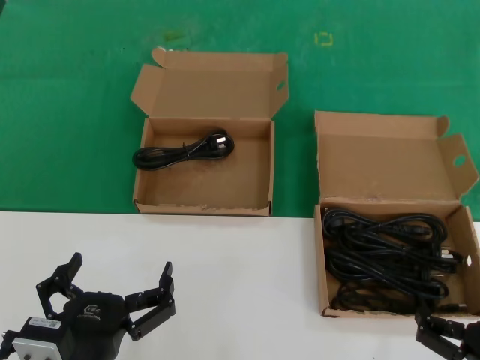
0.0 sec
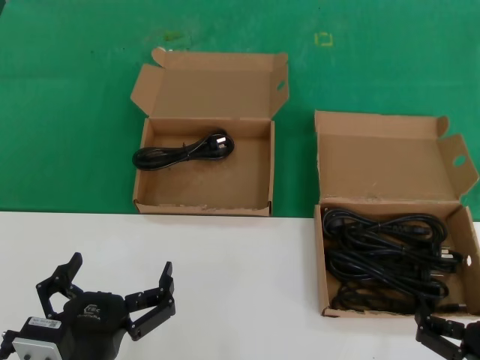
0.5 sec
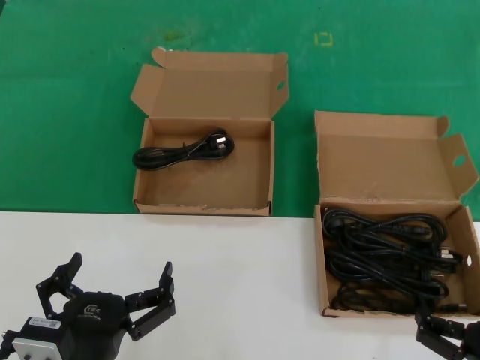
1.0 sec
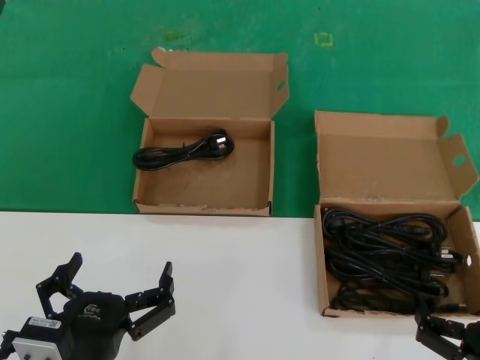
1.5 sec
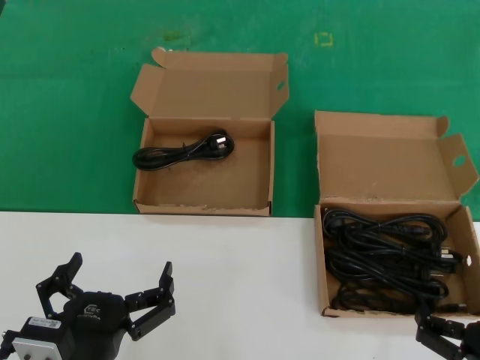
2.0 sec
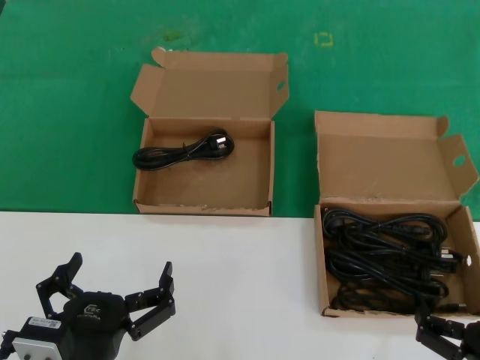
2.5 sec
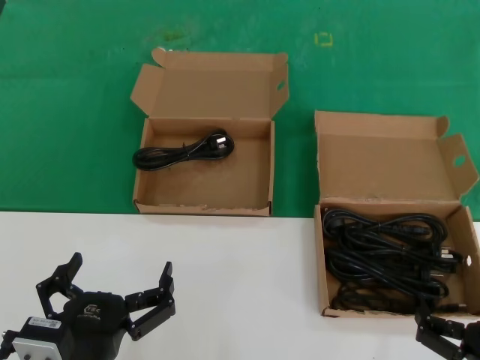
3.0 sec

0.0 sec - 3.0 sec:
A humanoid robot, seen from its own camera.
Task of the whole recording: take the parts from the box containing them and put them into an empty box.
0.0 sec - 3.0 sec: The two hands keep their place.

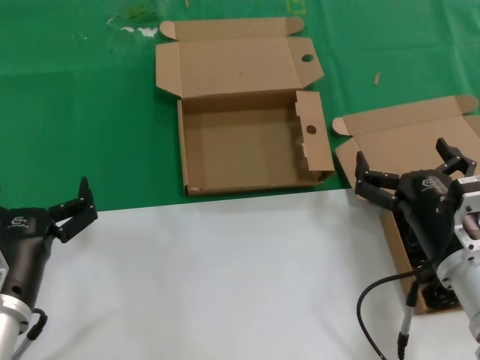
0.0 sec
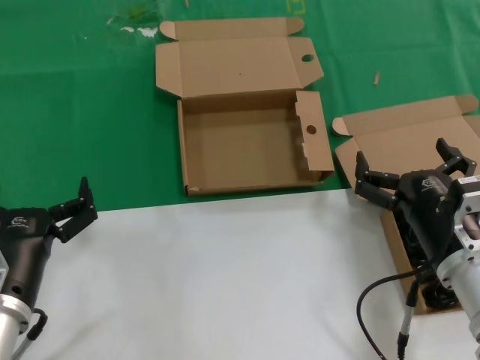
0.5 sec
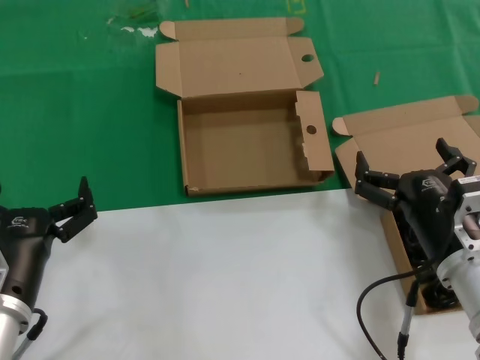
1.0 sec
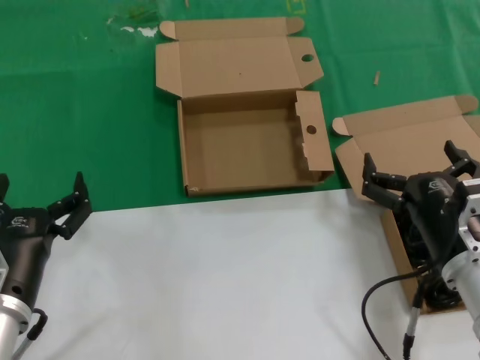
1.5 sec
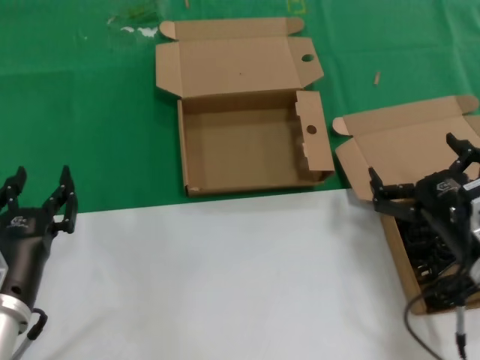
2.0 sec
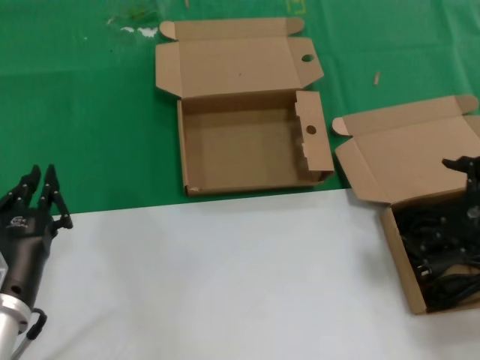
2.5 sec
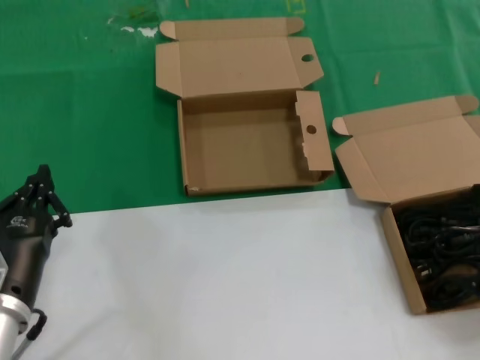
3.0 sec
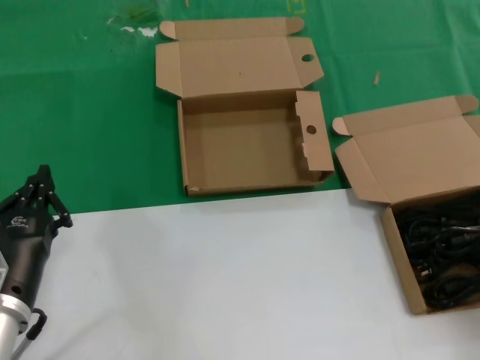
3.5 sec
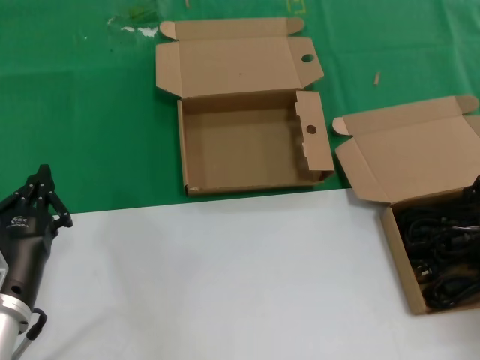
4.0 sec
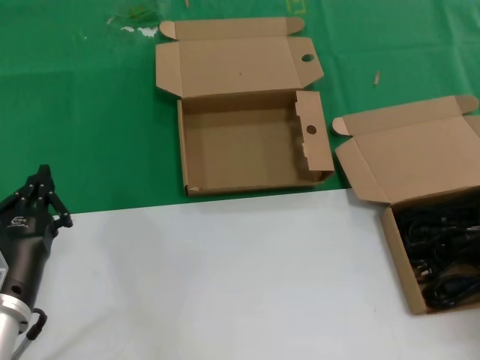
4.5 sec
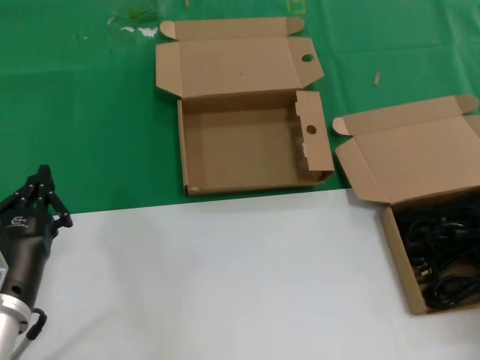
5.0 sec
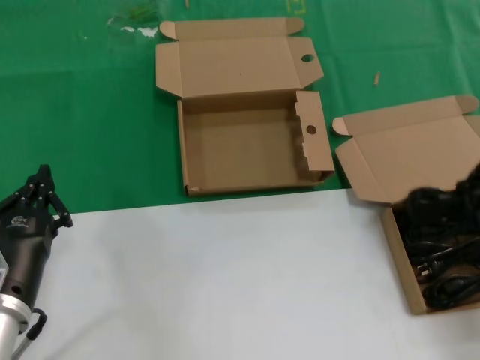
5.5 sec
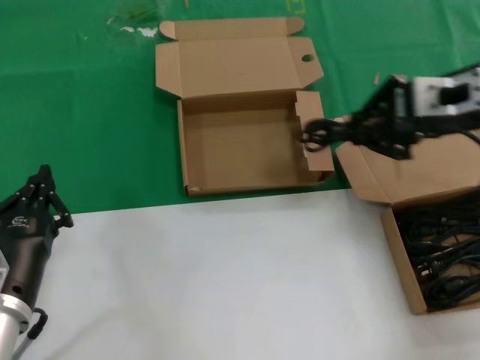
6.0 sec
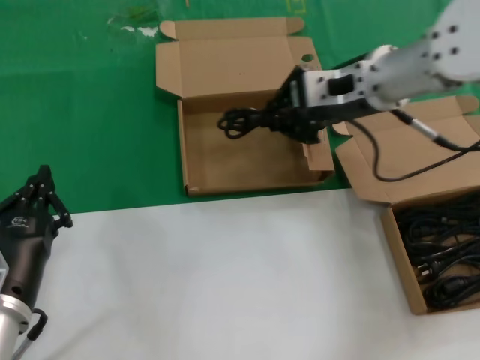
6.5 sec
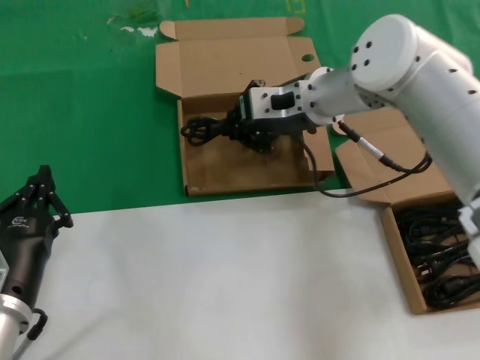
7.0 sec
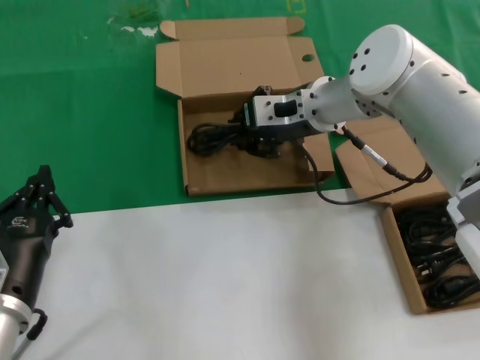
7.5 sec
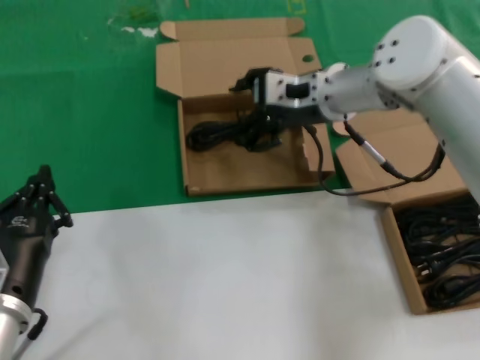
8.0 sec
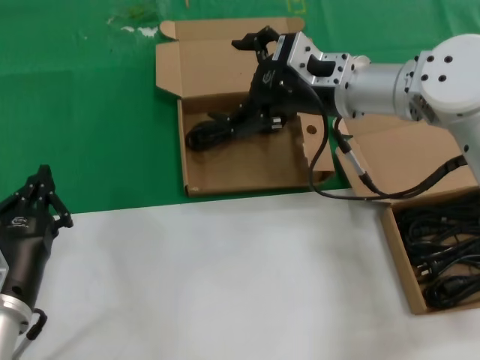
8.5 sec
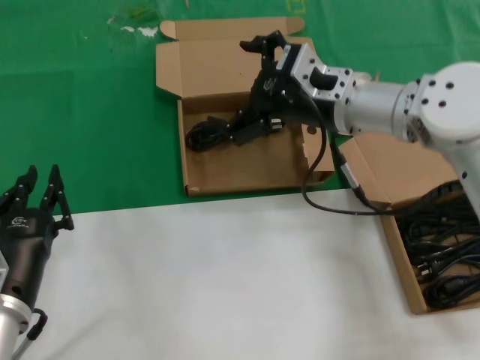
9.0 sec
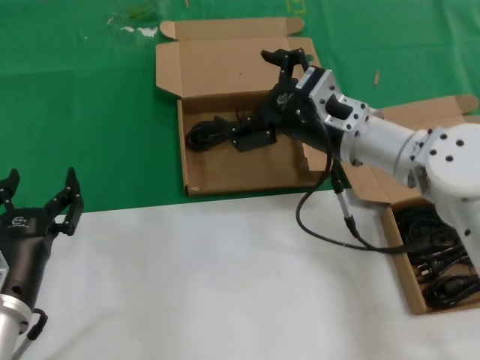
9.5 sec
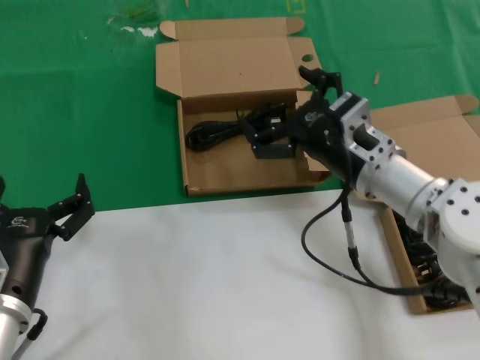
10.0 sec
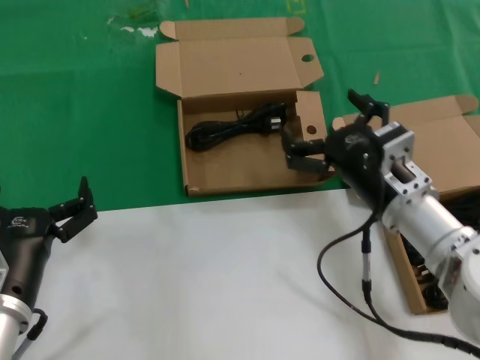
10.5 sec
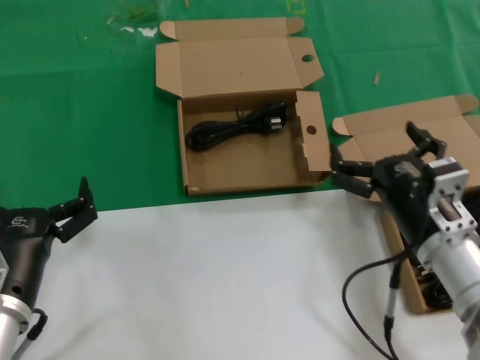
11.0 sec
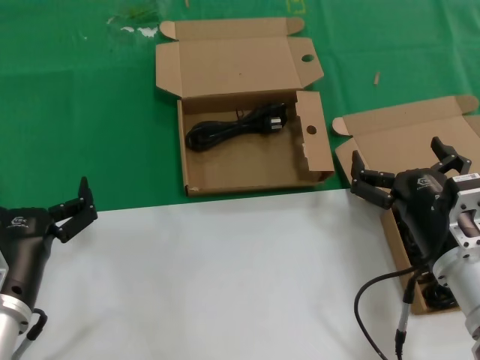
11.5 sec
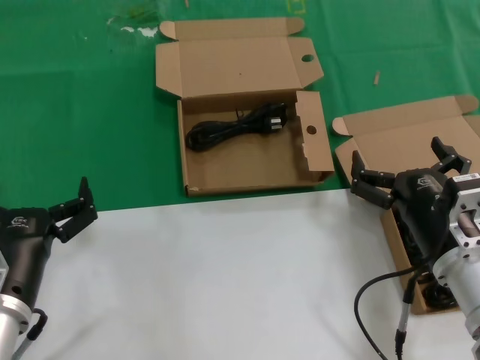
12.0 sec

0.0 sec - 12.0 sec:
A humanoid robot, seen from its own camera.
Task of the whole recording: take the parts from the box containing them and put them into an empty box.
Step, 0.0 sec - 5.0 sec: Grasp the data cable.
Step, 5.5 sec - 7.5 sec: Place the data cable in the another box.
0.0 sec - 2.0 sec: The hands make only small movements.
2.0 sec - 4.0 sec: The right hand goes approximately 20 cm upward, to the right and forward.
4.0 sec - 6.0 sec: The right hand goes roughly 15 cm to the left, upward and forward.
6.0 sec - 8.0 sec: The right hand shifts approximately 20 cm to the left, forward and downward.
8.0 sec - 10.0 sec: The right hand shifts roughly 15 cm backward and downward.
10.0 sec - 12.0 sec: The right hand moves backward and downward, some 15 cm.

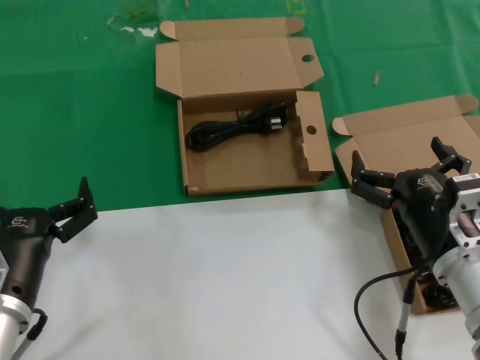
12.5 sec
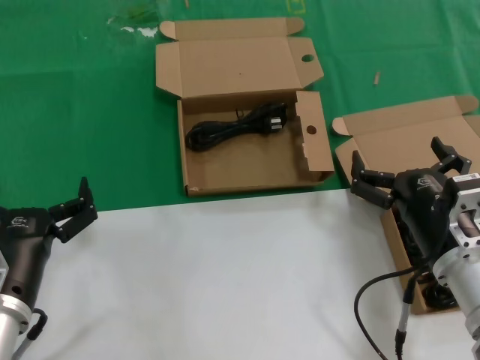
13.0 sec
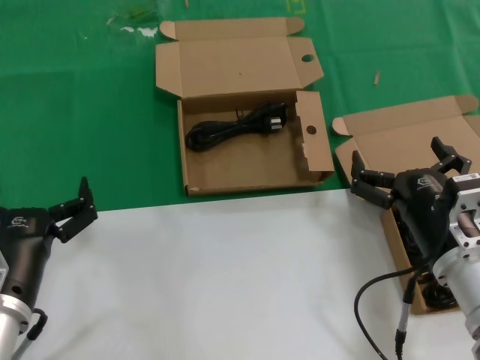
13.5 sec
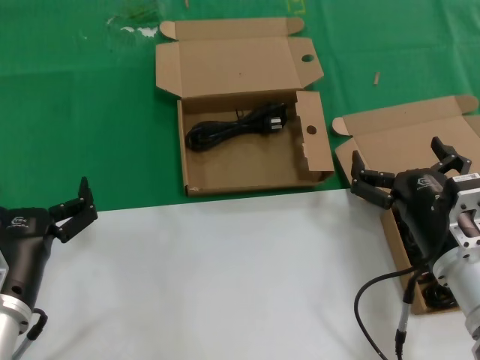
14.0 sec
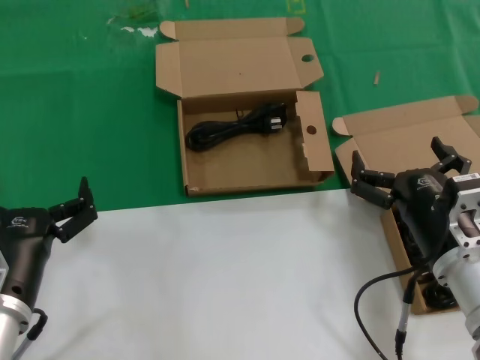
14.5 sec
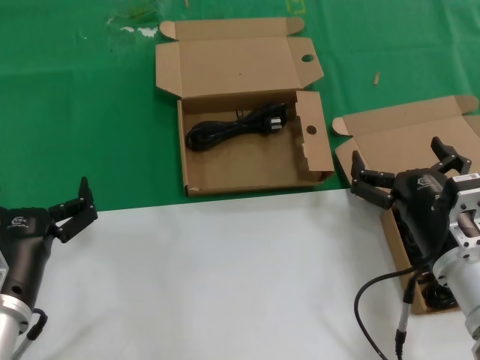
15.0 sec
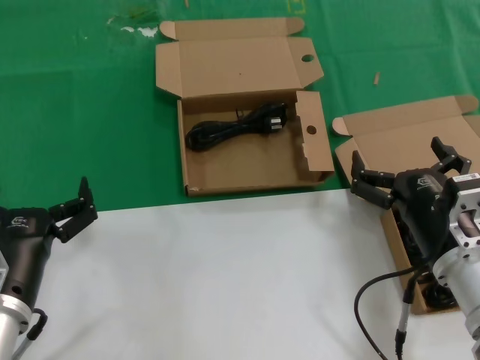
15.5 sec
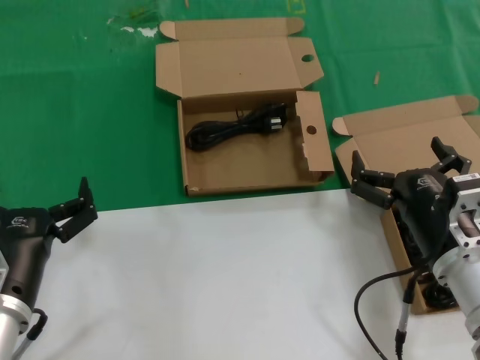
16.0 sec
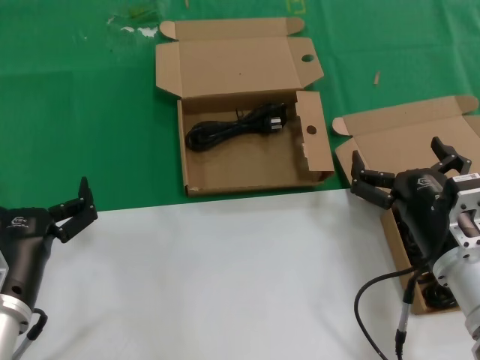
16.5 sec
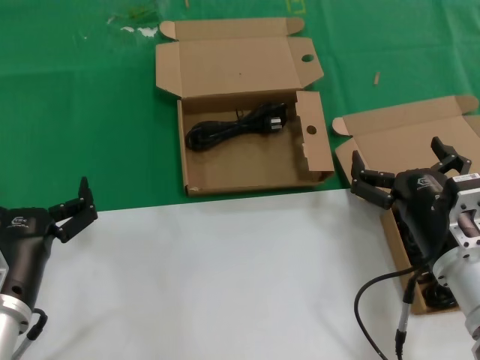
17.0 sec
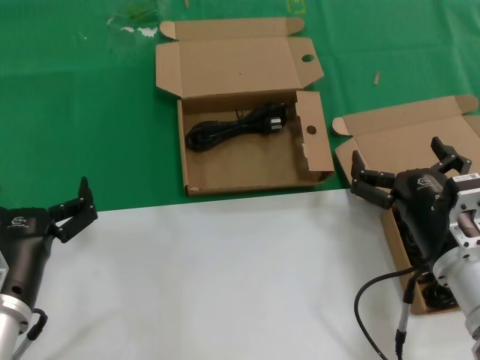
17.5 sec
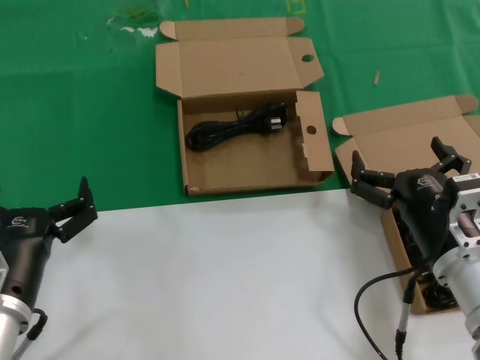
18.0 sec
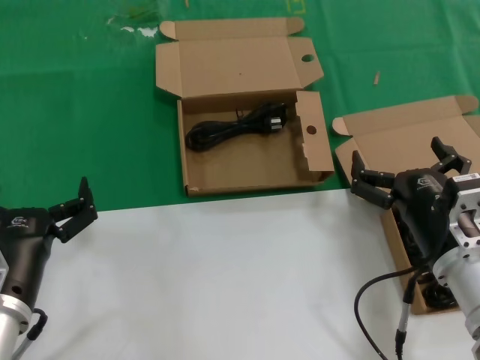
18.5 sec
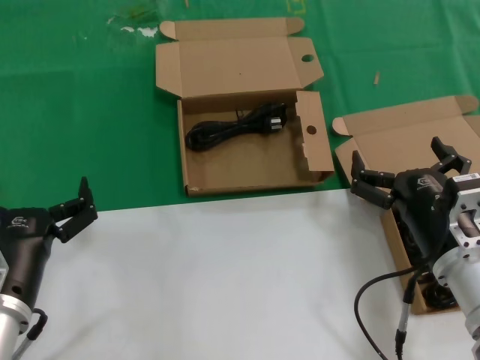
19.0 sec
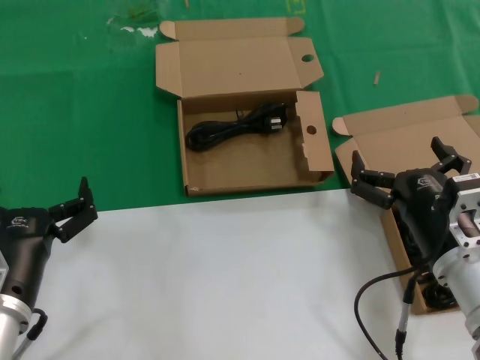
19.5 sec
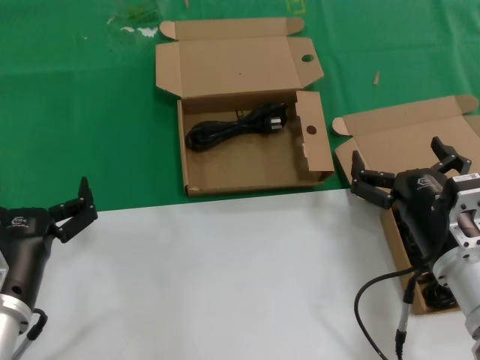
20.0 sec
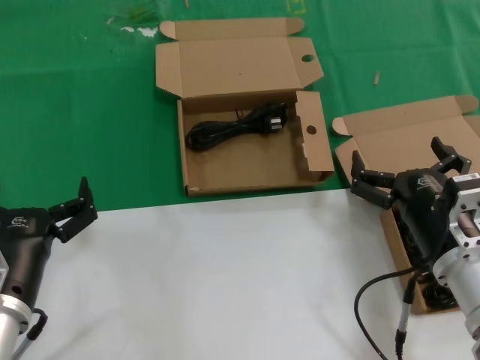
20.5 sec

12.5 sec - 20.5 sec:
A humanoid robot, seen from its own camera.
Task of the whole recording: take the parts from the box containing them and put them into an empty box.
12.5 sec - 20.5 sec: Neither hand changes place.

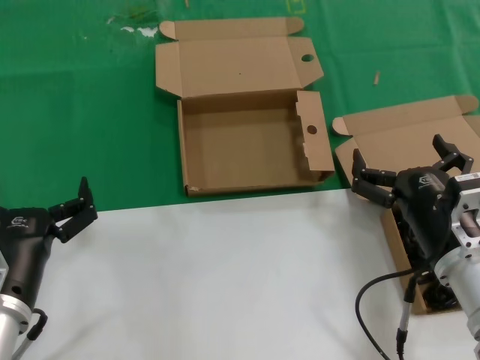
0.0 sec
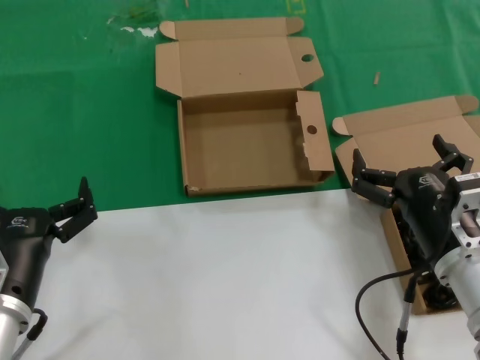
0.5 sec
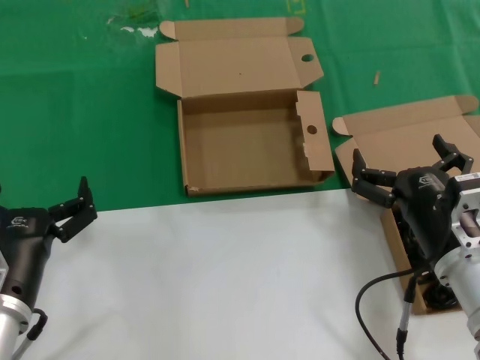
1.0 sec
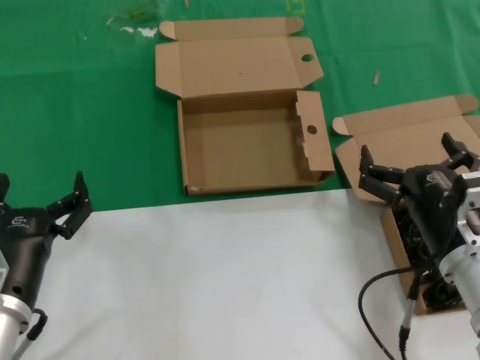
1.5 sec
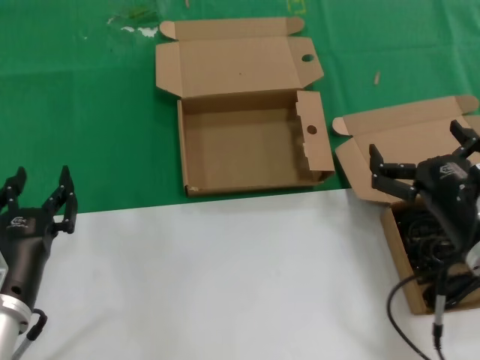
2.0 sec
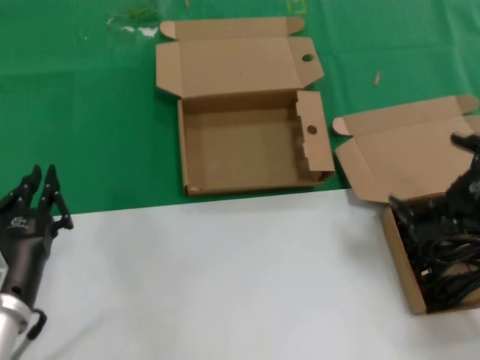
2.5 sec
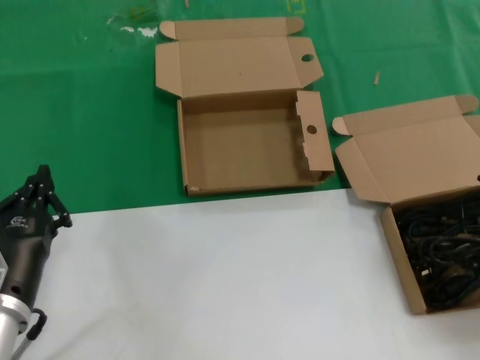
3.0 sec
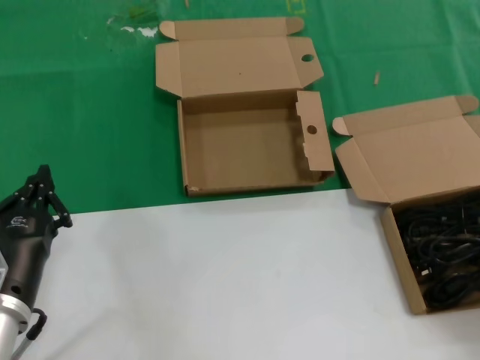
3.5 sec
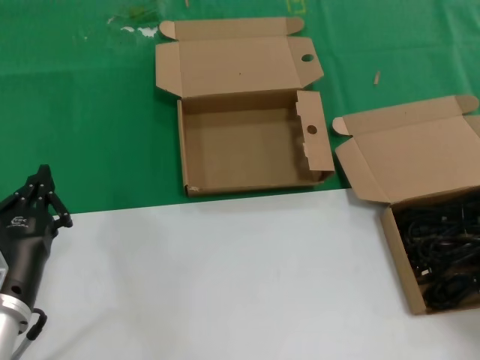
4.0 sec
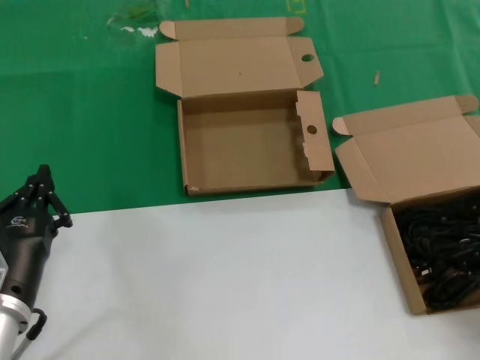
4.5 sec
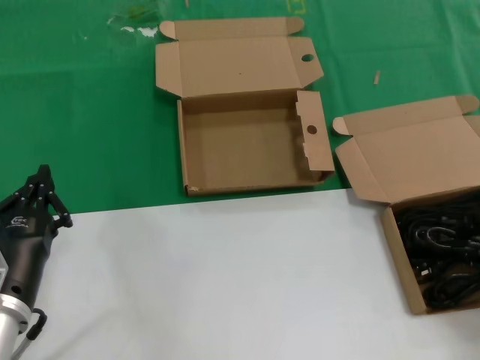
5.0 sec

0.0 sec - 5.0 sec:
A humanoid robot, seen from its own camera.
Task of the whole recording: take the parts from the box containing them and put them into an empty box.
Step, 0.0 sec - 4.5 sec: Grasp the data cable.
0.0 sec - 2.5 sec: The right hand shifts about 15 cm to the right and upward.
2.5 sec - 5.0 sec: The right hand heads to the right and forward, covering some 10 cm.
